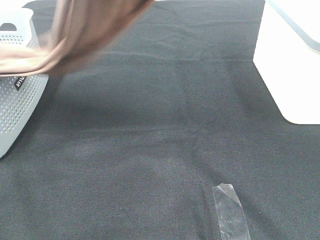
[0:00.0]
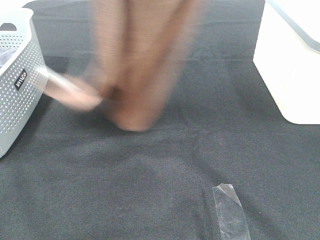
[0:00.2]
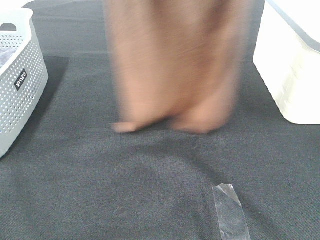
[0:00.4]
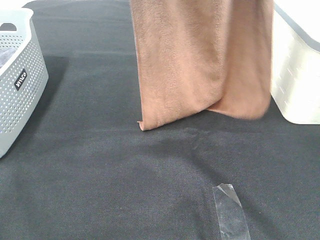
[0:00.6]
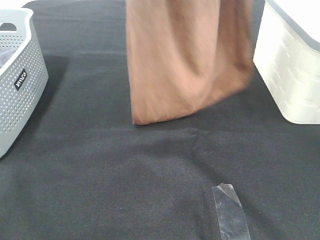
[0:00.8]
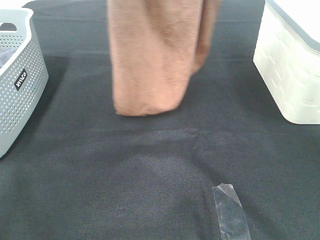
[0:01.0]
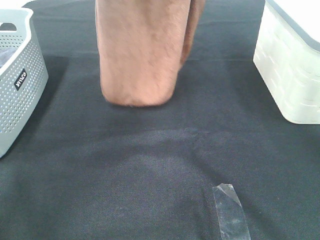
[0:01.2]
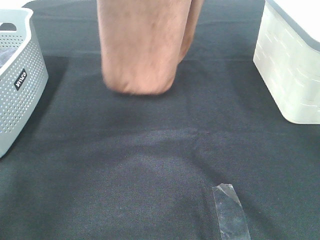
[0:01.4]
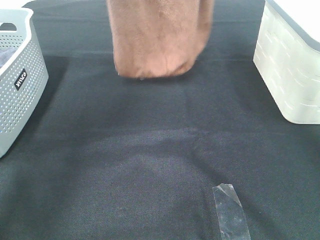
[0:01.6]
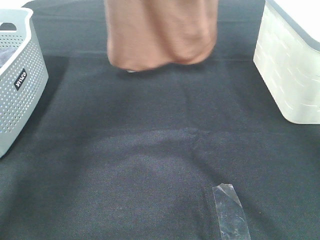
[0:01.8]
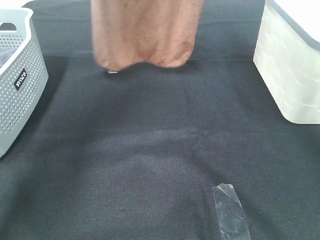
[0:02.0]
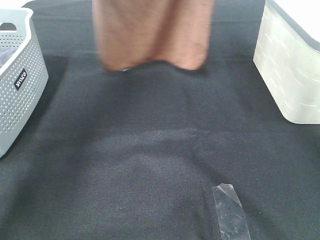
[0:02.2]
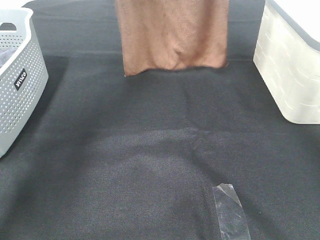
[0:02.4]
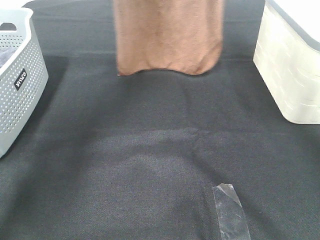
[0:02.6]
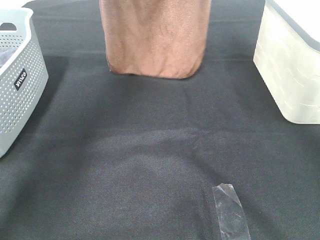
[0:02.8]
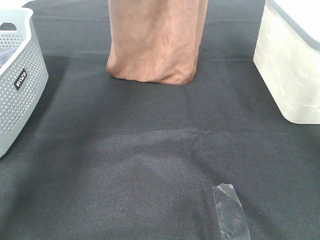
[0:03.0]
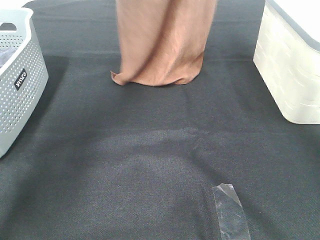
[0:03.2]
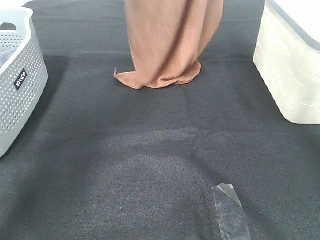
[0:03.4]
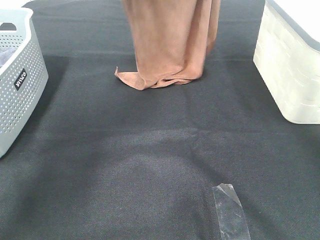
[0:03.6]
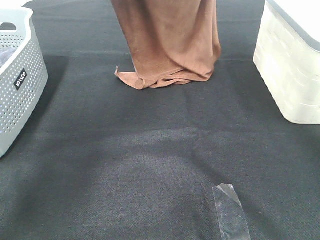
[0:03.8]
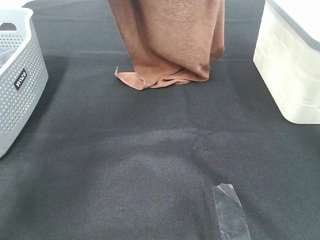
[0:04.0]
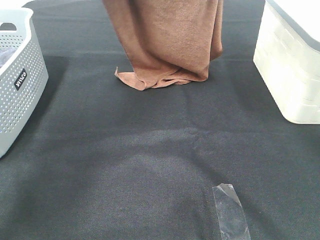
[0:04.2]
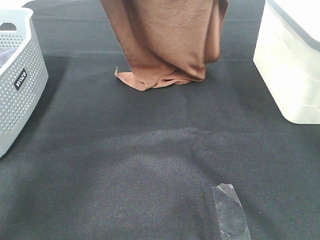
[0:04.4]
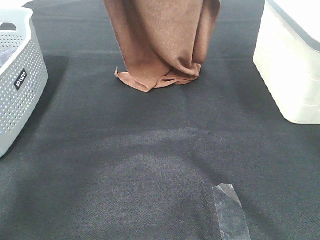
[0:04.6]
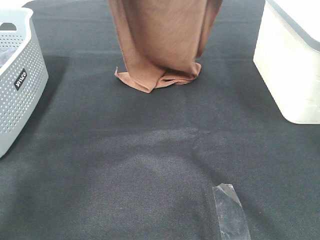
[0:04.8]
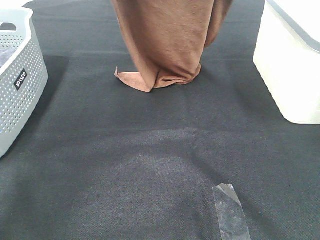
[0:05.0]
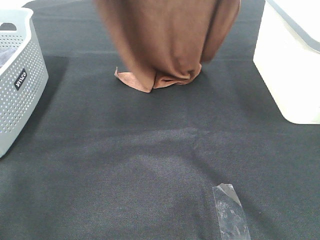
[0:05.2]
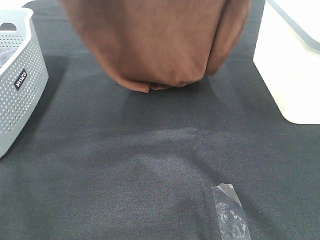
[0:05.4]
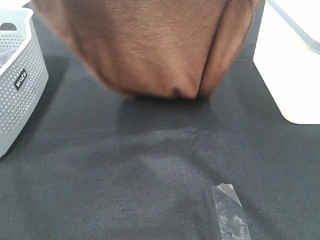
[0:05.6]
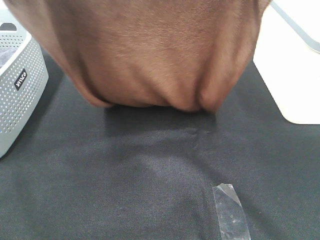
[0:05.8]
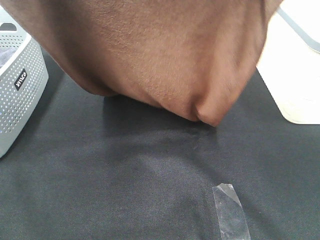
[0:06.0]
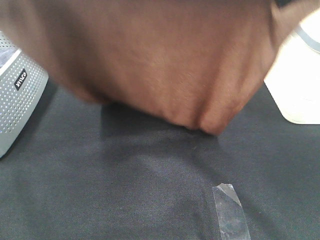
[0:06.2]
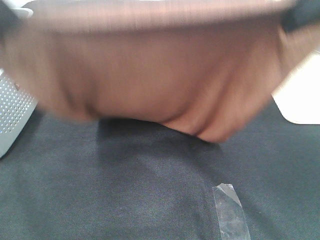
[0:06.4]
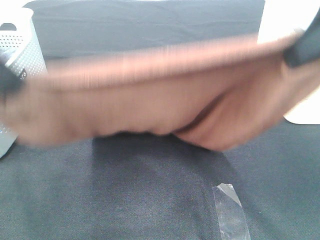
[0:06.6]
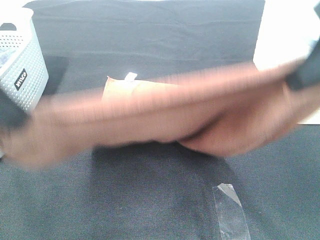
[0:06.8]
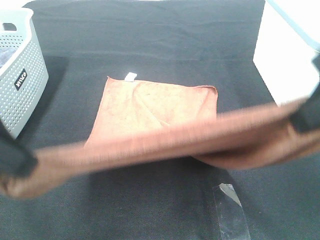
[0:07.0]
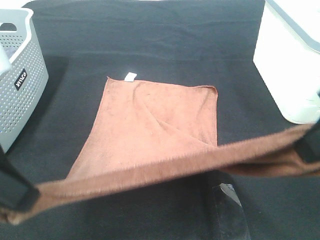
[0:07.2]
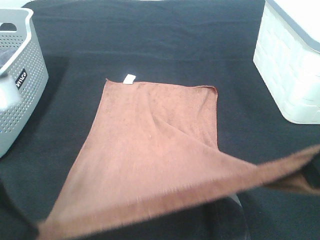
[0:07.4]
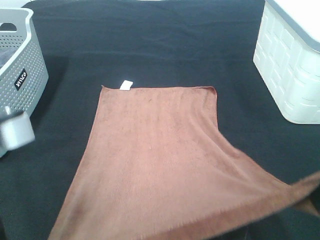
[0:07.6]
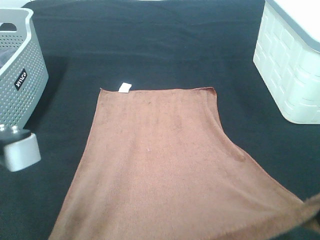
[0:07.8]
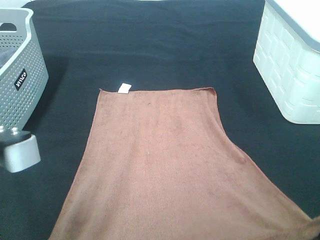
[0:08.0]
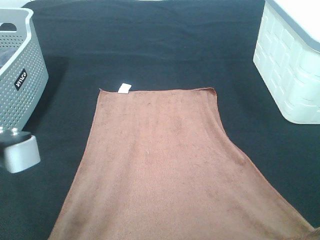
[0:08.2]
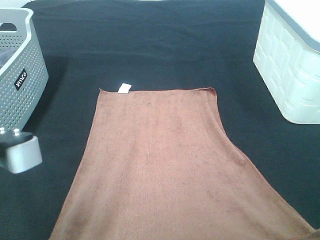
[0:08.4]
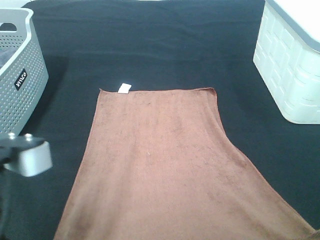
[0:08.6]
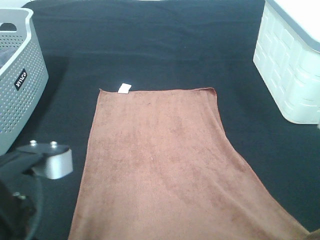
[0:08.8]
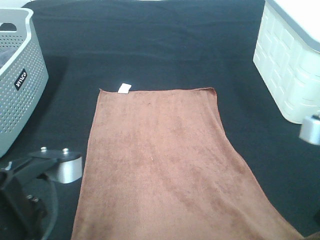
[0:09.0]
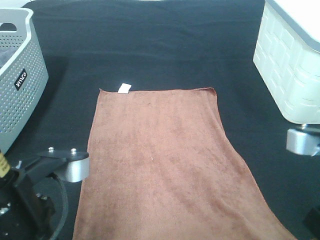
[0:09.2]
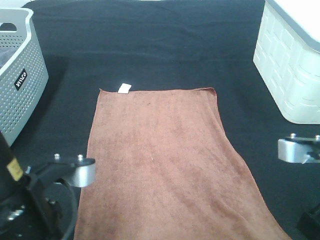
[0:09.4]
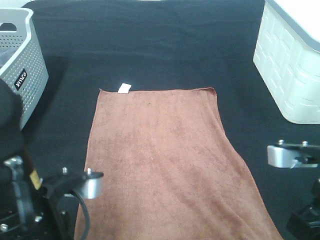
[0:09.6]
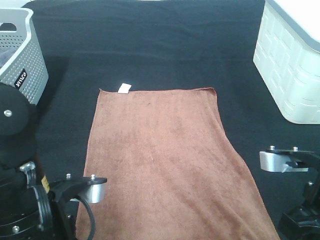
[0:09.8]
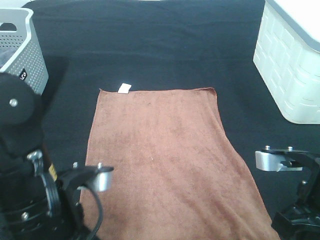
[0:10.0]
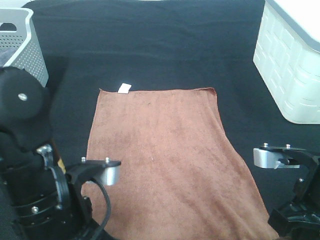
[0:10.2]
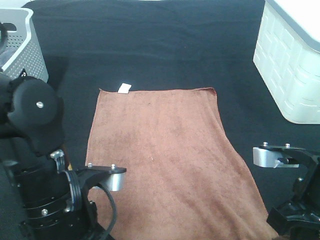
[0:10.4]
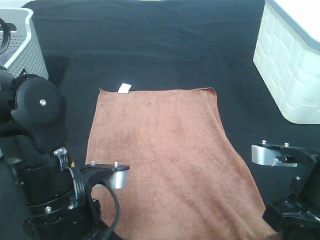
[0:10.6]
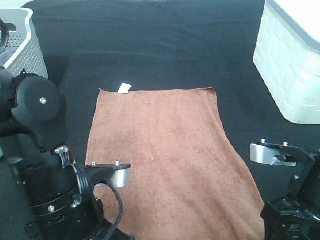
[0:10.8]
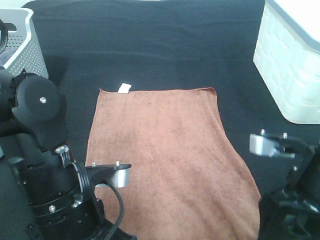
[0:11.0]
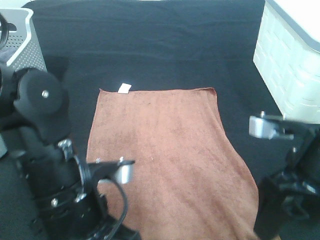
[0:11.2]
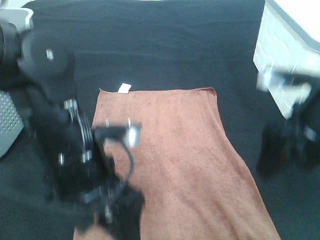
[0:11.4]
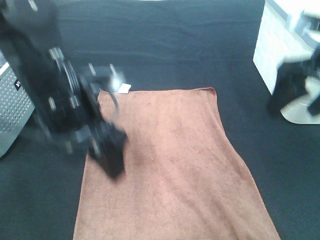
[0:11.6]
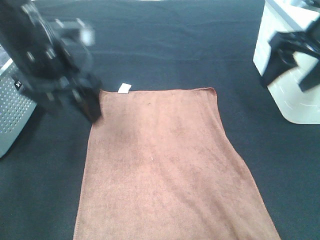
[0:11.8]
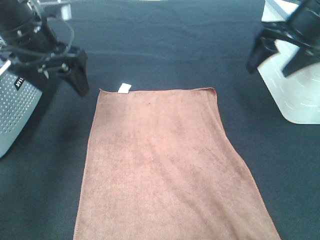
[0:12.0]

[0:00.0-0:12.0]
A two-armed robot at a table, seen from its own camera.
Task of the whole recording: Remove the towel and place it.
Step, 0:00.0 to 0:06.2: Left hand: spread the brown towel flat on the table.
Step, 0:00.0 to 0:06.2: Right hand: spread the brown towel flat on the table.
0:00.0 to 0:01.6: Both grippers move forward, roughly 15 cm.
0:01.6 to 0:03.0: The right gripper changes place by approximately 5 cm. The left gripper travels forward by roughly 5 cm.
0:03.0 to 0:04.4: The left gripper goes roughly 5 cm backward. The right gripper is displaced backward and downward by approximately 10 cm.
0:04.4 to 0:06.0: The grippers both shift backward by about 20 cm.
0:06.0 to 0:07.6: Both grippers move downward and backward, some 20 cm.
0:07.6 to 0:09.0: The right gripper heads downward, covering some 5 cm. Meanwhile the left gripper changes place by some 5 cm.
0:09.0 to 0:10.4: The two grippers go about 5 cm downward.
0:10.4 to 0:12.0: The left gripper heads forward, upward and to the left, covering about 25 cm, and opens. The right gripper heads forward and upward, covering roughly 25 cm, and opens its fingers.

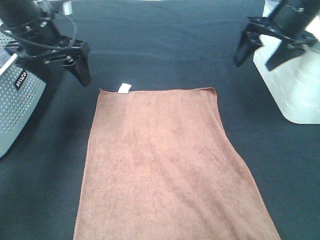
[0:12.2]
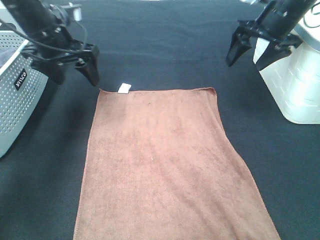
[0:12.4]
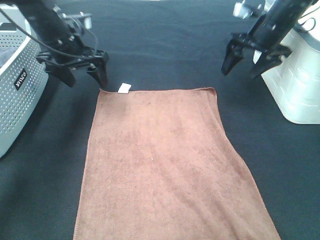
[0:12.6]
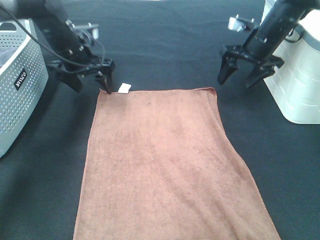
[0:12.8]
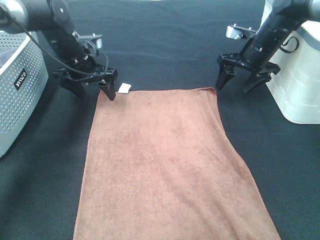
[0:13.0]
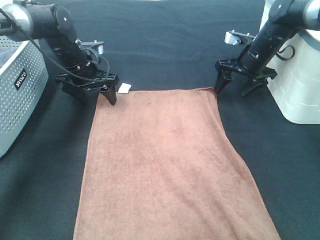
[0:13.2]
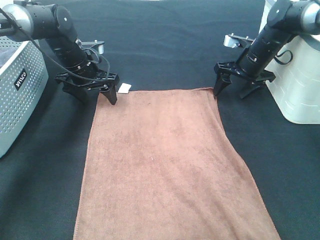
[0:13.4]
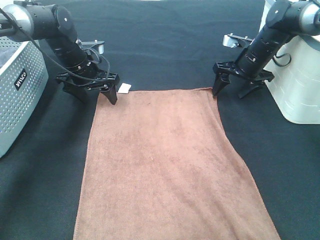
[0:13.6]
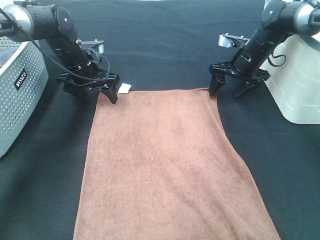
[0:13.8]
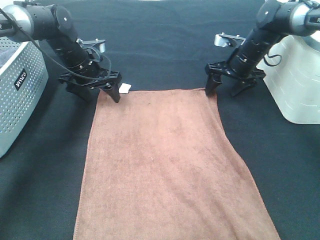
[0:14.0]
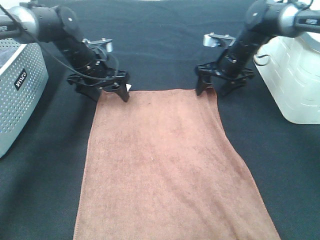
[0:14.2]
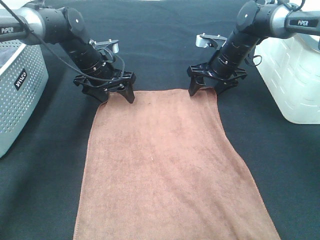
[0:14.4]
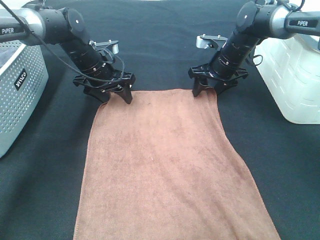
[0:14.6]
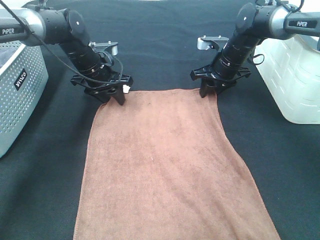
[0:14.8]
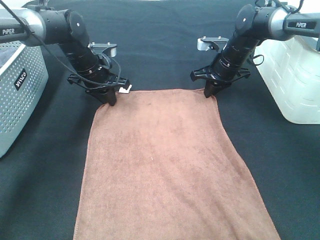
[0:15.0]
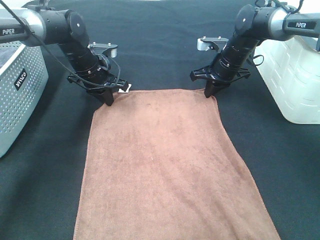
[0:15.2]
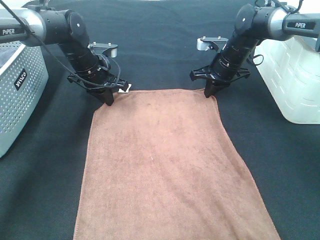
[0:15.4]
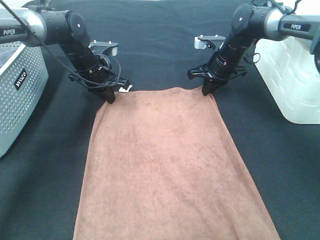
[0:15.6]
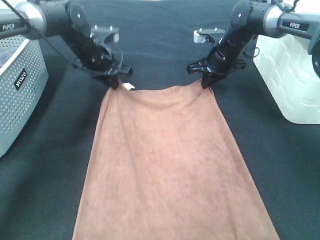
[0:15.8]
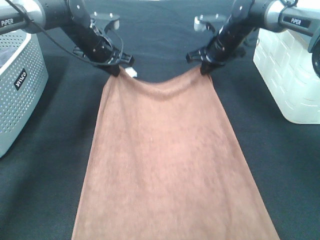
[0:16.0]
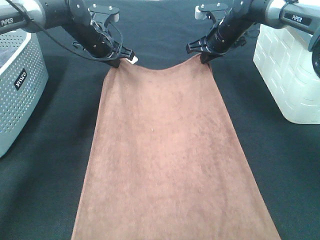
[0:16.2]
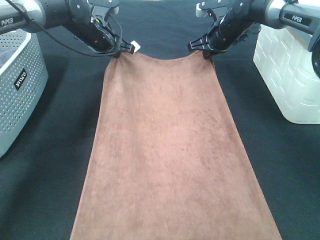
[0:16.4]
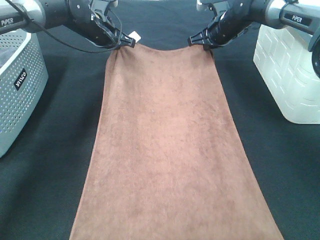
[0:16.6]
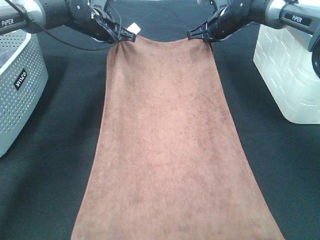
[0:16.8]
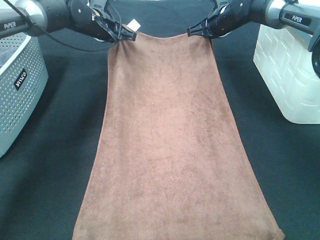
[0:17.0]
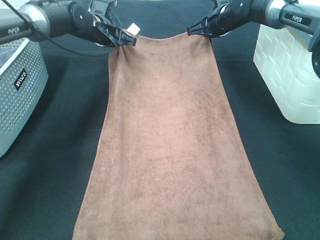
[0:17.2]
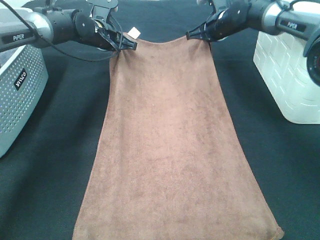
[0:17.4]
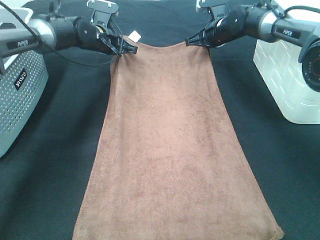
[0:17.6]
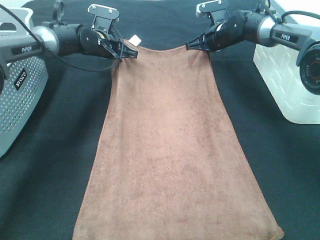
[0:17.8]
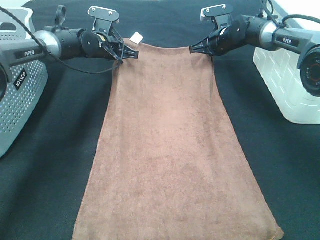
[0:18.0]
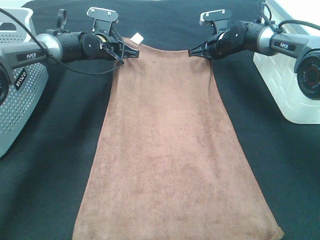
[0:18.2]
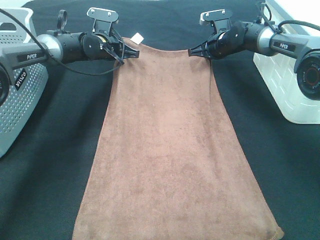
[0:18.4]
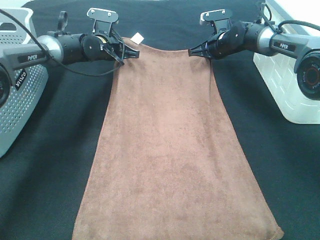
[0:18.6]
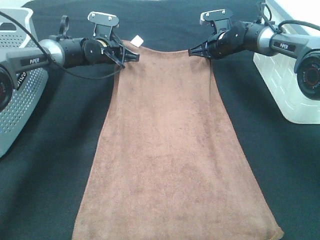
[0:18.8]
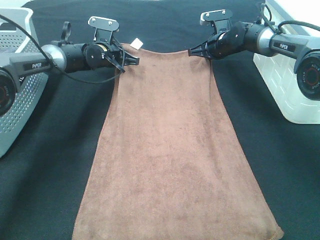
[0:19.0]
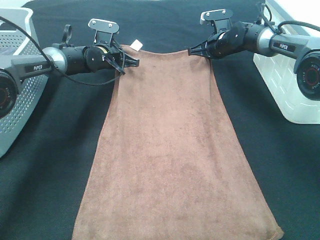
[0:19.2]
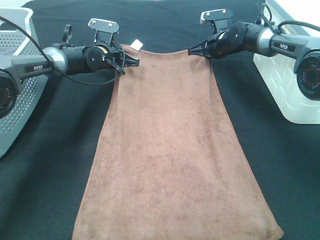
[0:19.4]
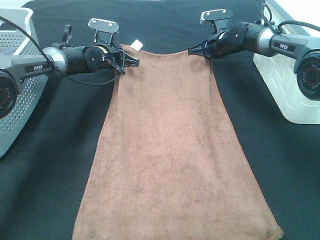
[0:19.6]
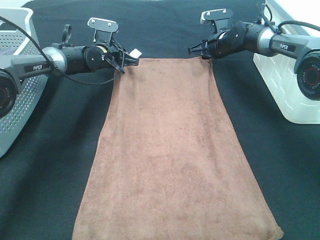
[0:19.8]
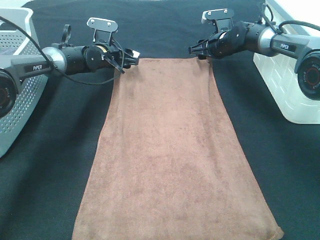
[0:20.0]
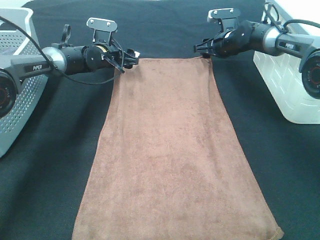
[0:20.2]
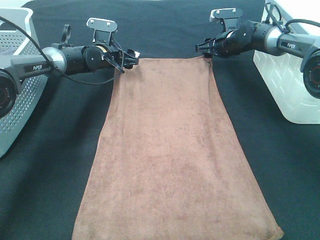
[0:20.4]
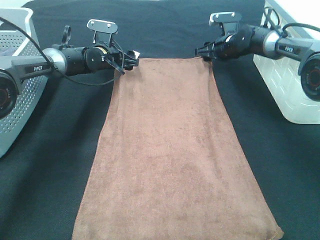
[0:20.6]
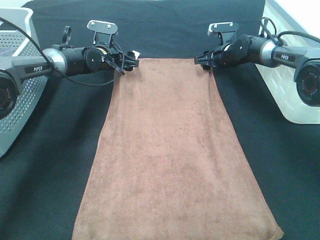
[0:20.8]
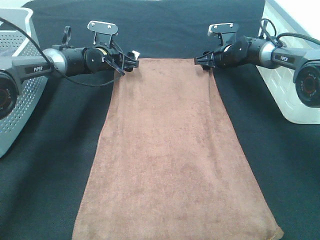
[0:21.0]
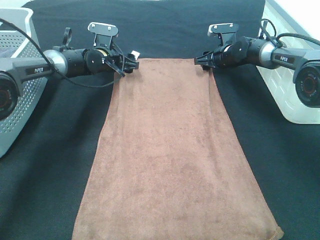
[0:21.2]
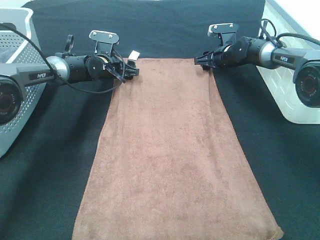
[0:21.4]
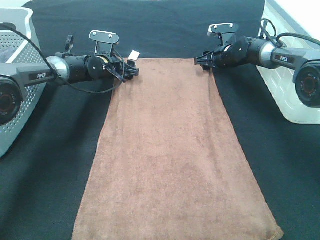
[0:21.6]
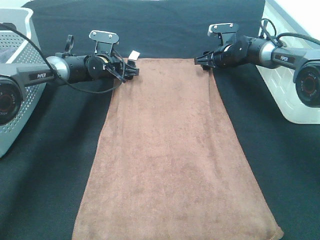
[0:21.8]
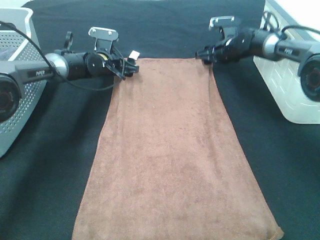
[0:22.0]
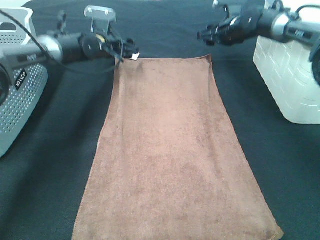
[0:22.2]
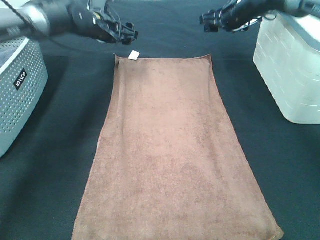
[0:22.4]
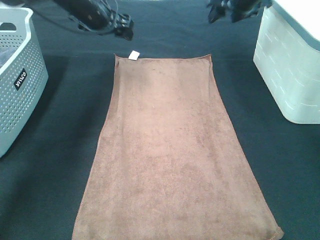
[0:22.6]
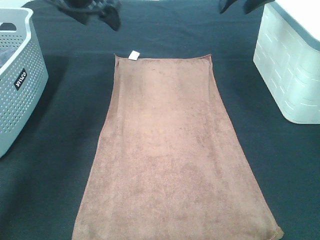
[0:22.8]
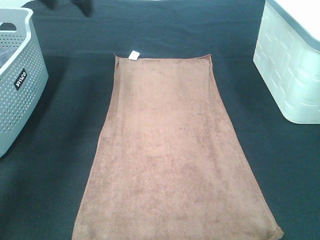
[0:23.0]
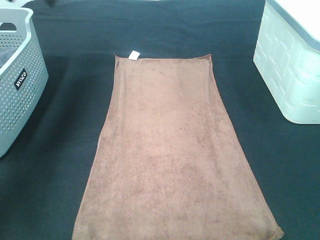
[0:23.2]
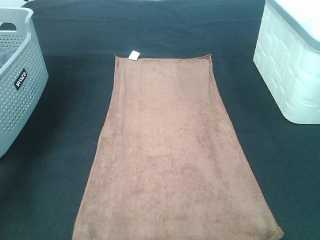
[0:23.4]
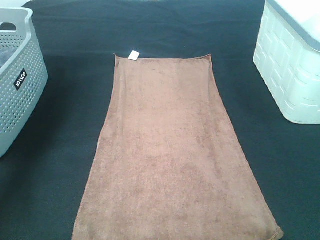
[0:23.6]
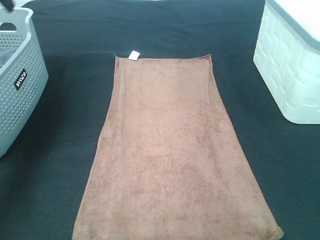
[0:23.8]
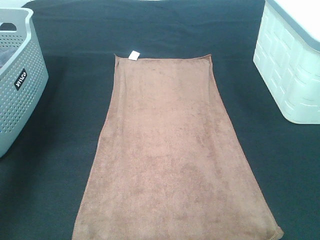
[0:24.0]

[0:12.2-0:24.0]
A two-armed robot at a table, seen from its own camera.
Task of the whole recording: Remove the towel and place it.
Step, 0:12.2 to 0:14.2: Left hand:adjust the brown towel.
Step, 0:12.2 to 0:14.2: Right hand:adjust the brown towel.
0:12.2 to 0:13.6: The grippers both shift downward and forward by some 15 cm.
0:13.6 to 0:15.2: The left gripper closes. Meanwhile the right gripper shifts about 5 cm to the left, and closes its fingers.
0:15.2 to 0:16.6: The two grippers go about 10 cm upward and forward.
0:16.6 to 0:18.2: Both grippers travel together downward, approximately 5 cm.
0:18.2 to 0:19.6: The grippers make only small movements.
0:19.6 to 0:21.0: The left gripper opens; the right gripper opens up.
0:21.0 to 0:22.6: Both grippers move upward, about 20 cm.
0:22.6 to 0:24.0: The left gripper is displaced backward, to the left and upward by about 30 cm. Meanwhile the right gripper goes about 30 cm backward and upward.
